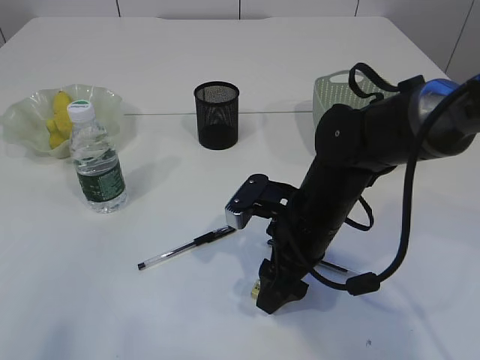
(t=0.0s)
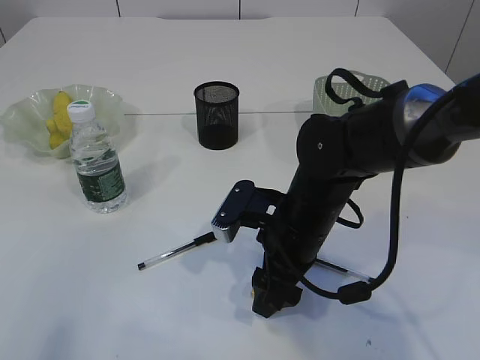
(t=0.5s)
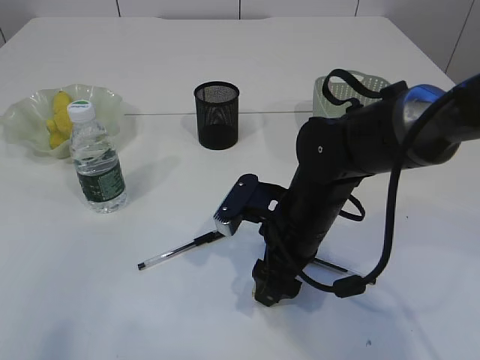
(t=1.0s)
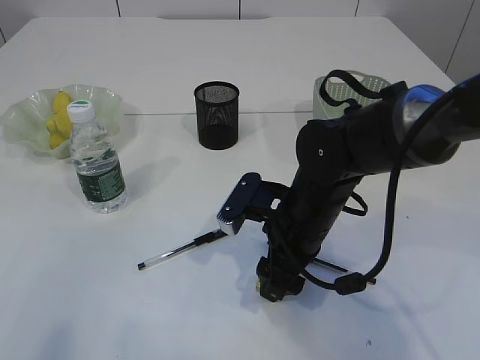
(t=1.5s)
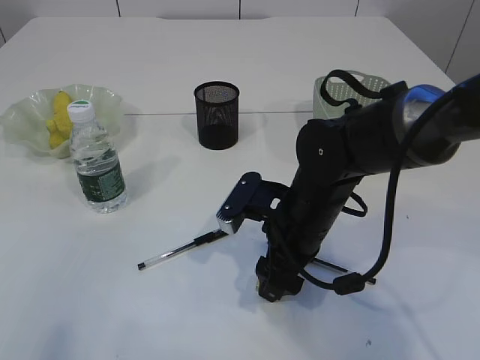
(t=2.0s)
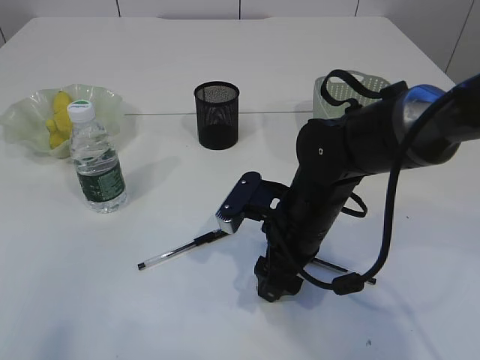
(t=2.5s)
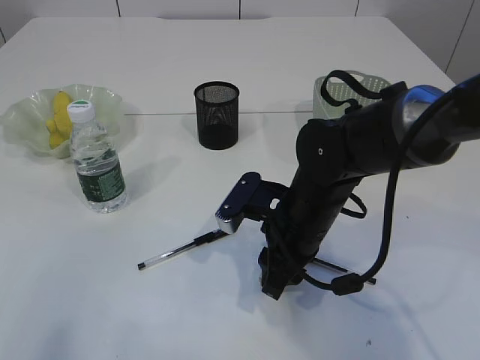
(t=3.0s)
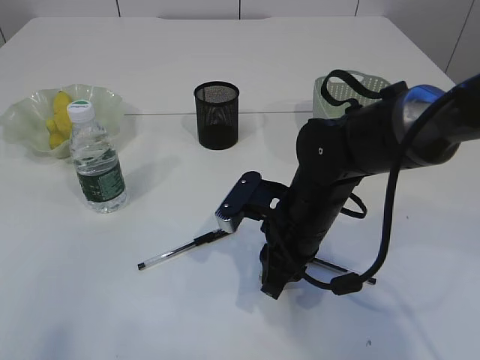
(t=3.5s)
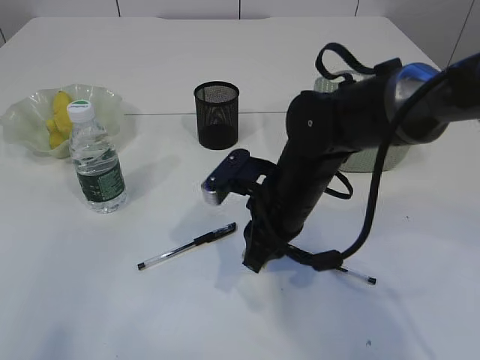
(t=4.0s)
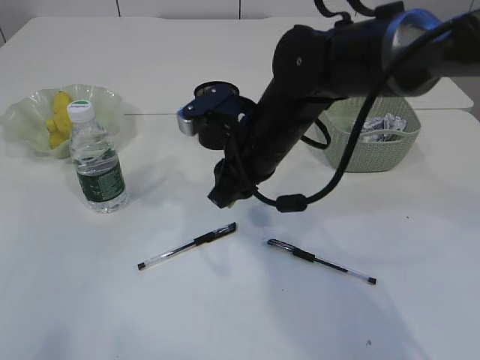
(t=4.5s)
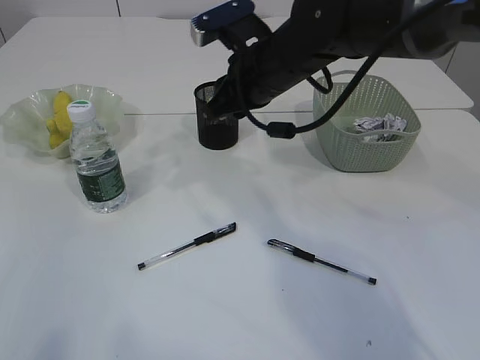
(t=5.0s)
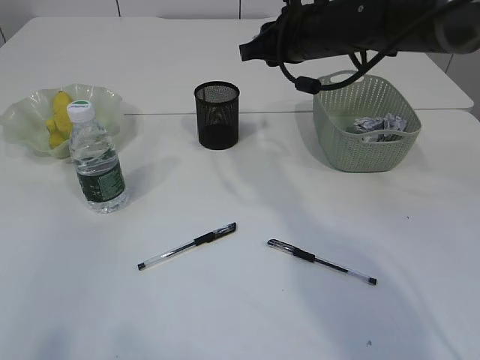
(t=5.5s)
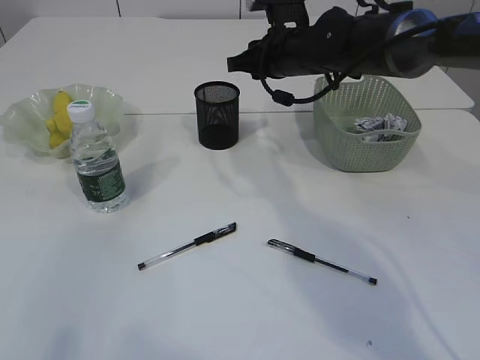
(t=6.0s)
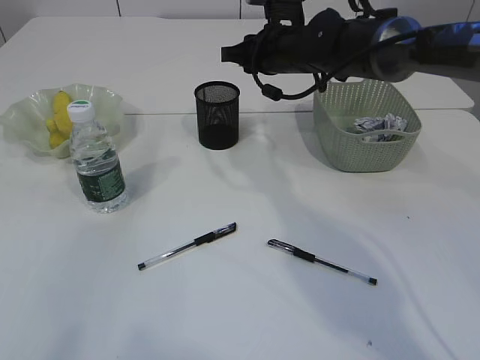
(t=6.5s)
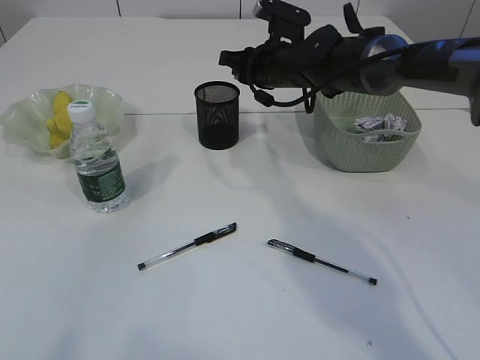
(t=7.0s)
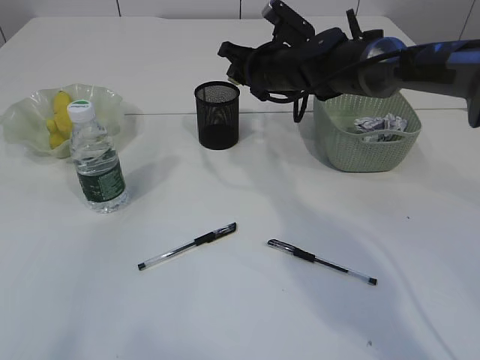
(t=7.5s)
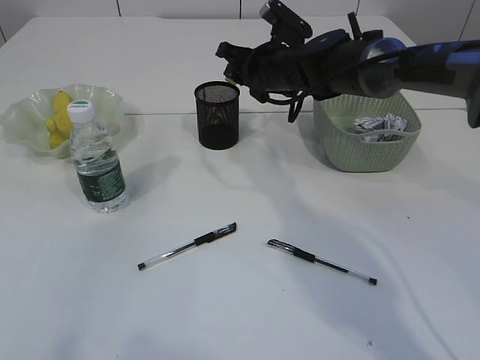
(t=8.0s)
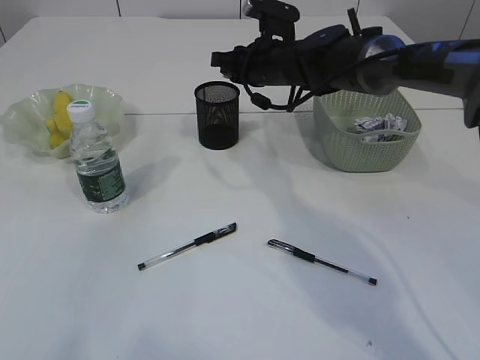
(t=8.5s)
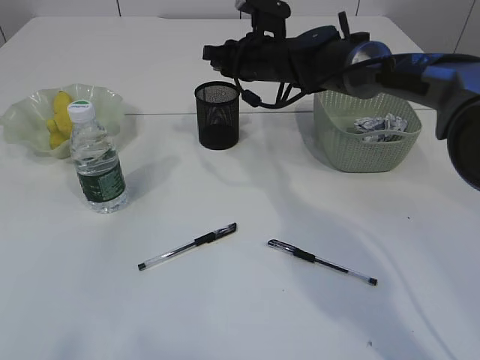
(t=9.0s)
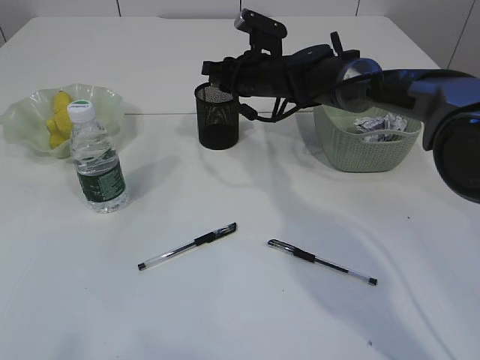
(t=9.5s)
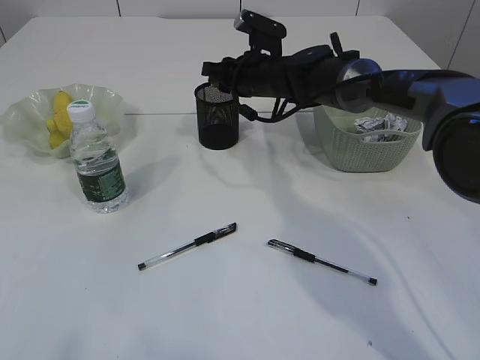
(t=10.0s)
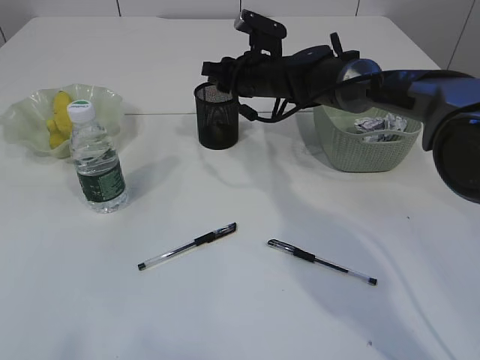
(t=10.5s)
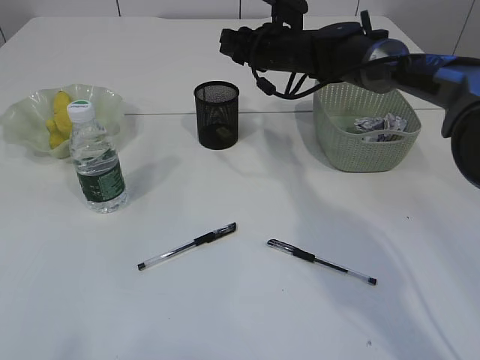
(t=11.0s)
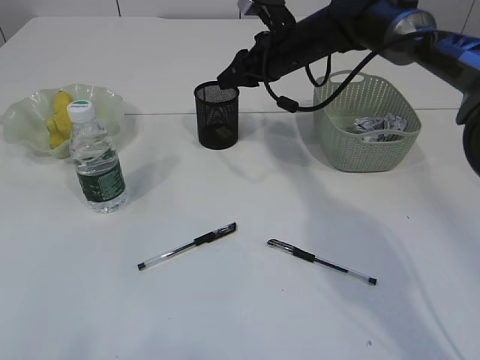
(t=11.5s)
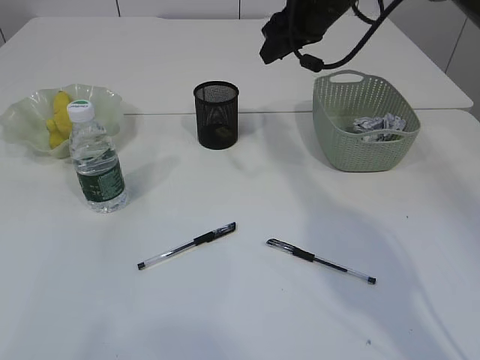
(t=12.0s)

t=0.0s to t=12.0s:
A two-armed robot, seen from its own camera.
Step, t=0.0s to t=4.0s: Pick up the eraser.
Step, t=4.5s to t=10.5s: Place the eraser into the pen holder.
t=0.0s to t=2.0s: The grippers stay close to where they were, moving slightly.
t=2.0s to t=4.0s: The right gripper closes.
t=4.0s to t=6.0s: The right gripper moves forward and upward, about 20 cm.
t=10.0s to t=12.0s: The right gripper moves upward and to the right, roughly 15 cm.

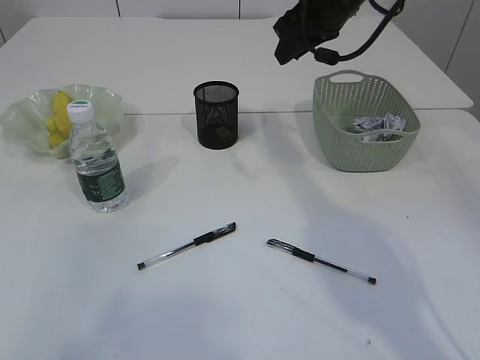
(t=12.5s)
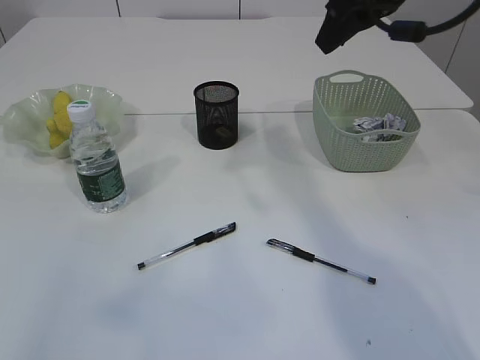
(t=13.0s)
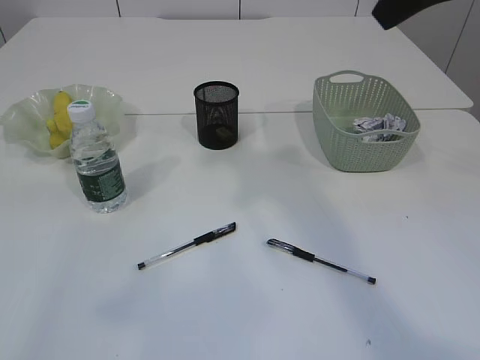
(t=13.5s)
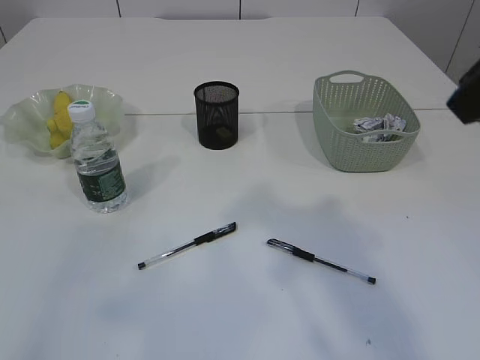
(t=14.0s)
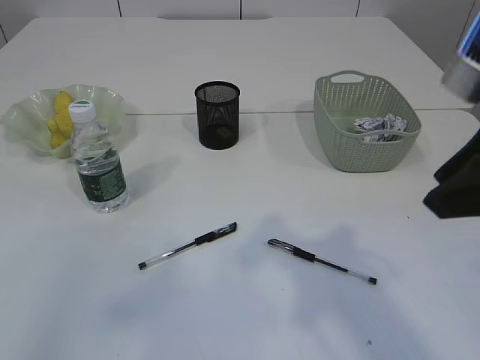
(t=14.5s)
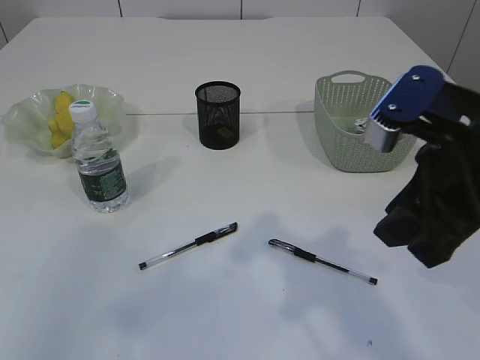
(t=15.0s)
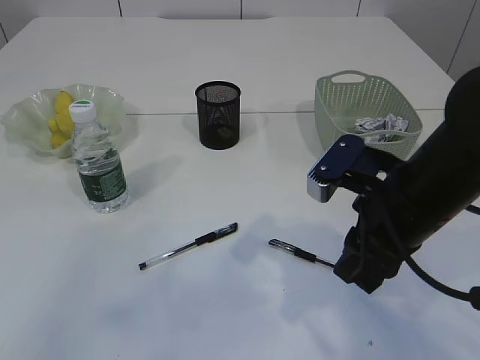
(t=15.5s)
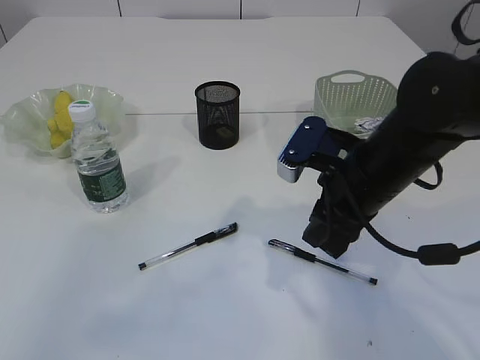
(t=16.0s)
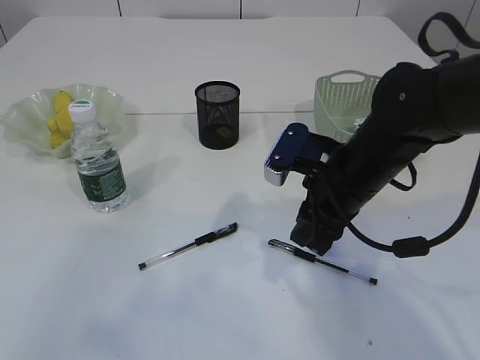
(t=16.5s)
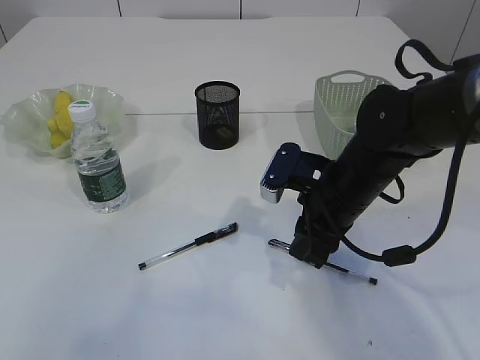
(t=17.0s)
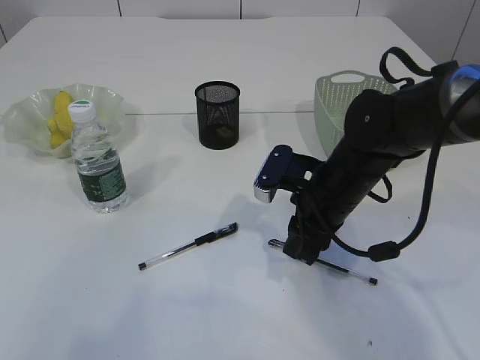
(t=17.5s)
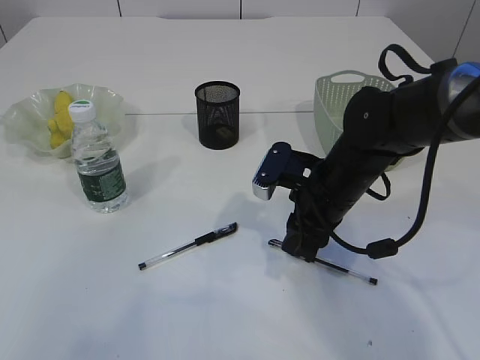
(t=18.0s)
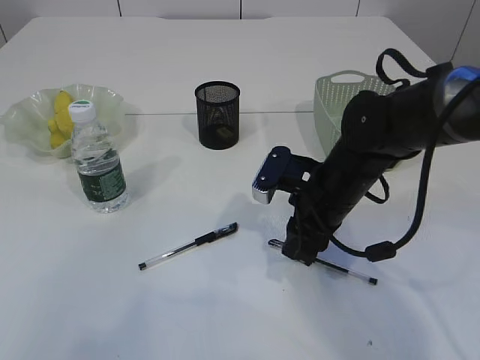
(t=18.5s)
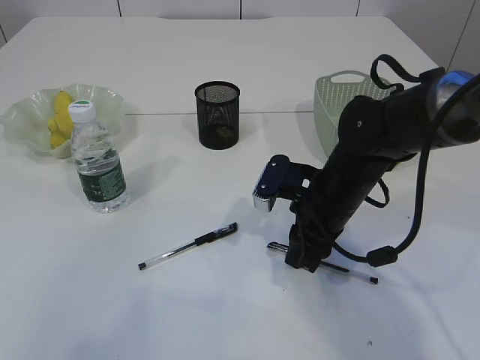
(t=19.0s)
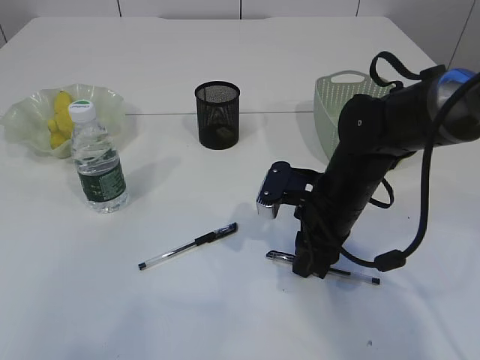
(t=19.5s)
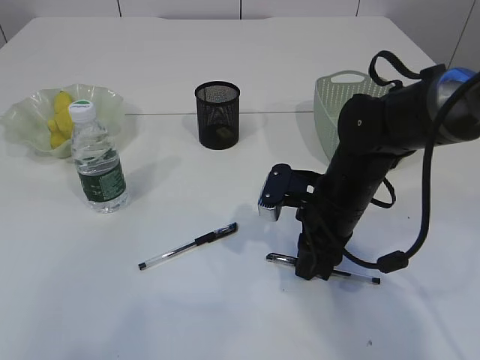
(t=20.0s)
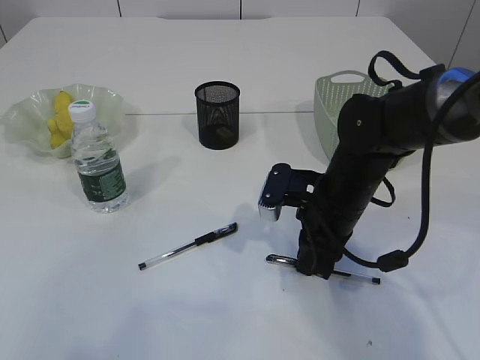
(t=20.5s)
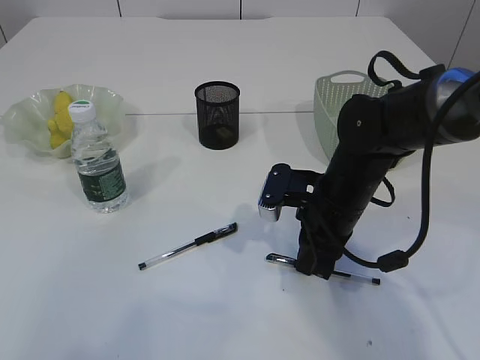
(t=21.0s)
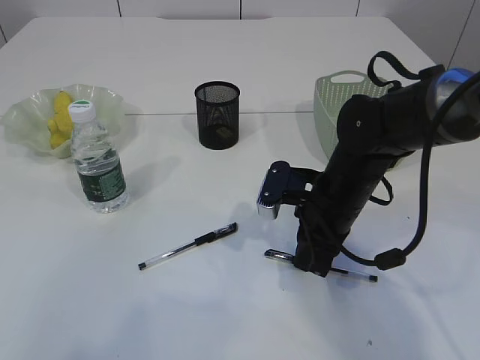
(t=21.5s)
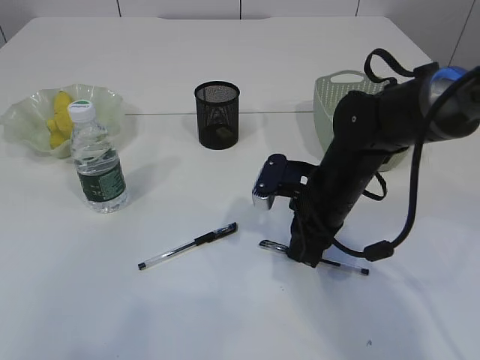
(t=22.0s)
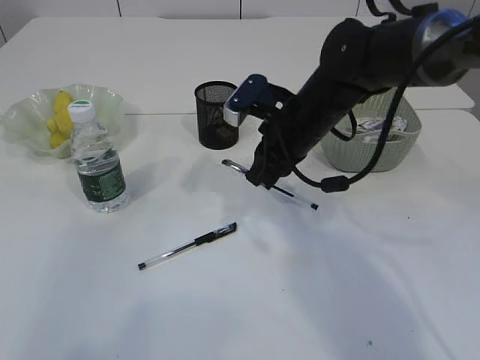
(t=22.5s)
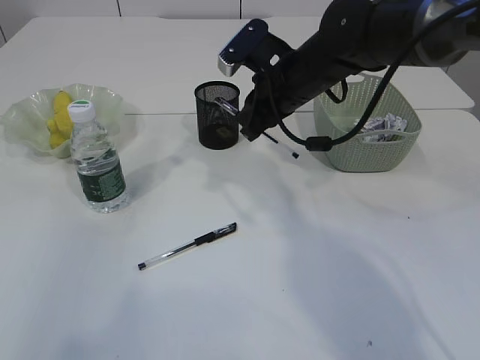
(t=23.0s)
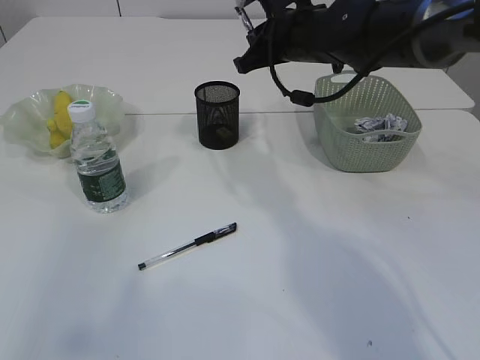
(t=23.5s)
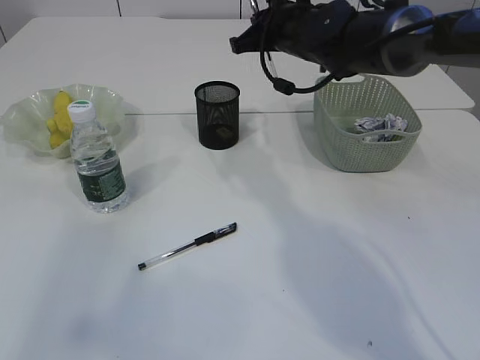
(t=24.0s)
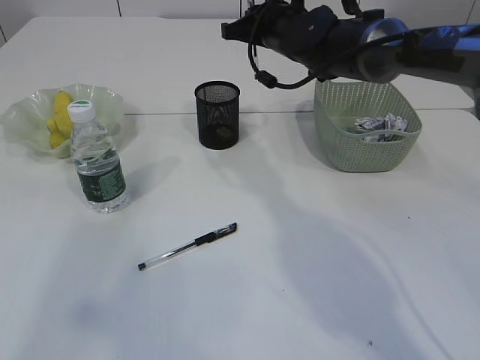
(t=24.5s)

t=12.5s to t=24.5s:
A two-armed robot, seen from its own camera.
Step, t=12.5s to t=22.5s: Pick up the pen with right arm.
t=12.5s to t=14.5s: The right gripper heads backward, covering roughly 30 cm.
t=14.5s to t=16.5s: The right gripper travels downward, forward and to the left by some 20 cm.
t=16.5s to t=20.5s: The grippers move only a little.
t=20.5s to t=22.5s: The right gripper goes roughly 10 cm upward and forward.
t=22.5s to t=24.5s: The right gripper goes some 15 cm forward and upward.

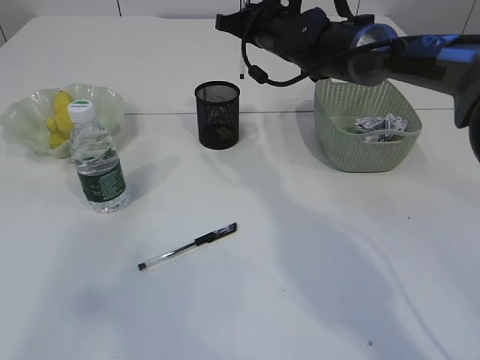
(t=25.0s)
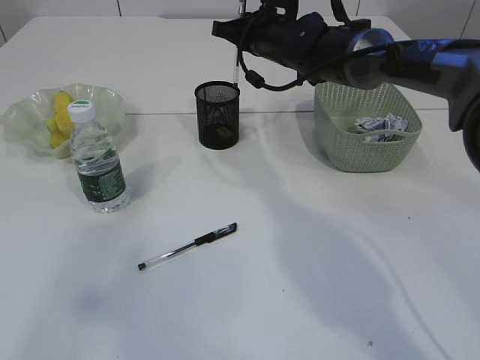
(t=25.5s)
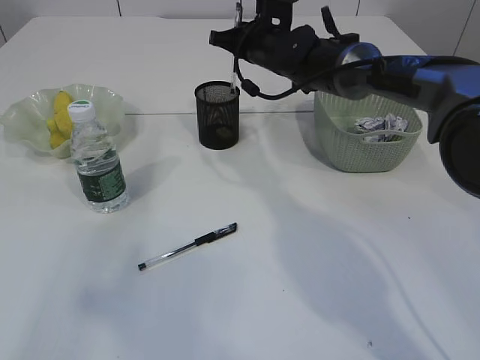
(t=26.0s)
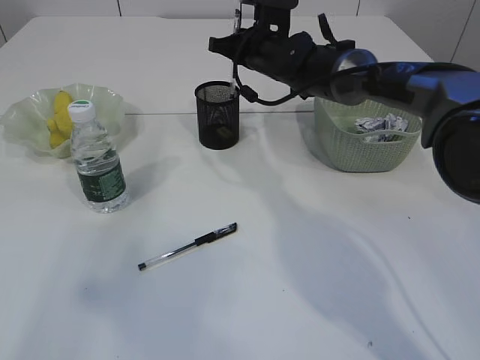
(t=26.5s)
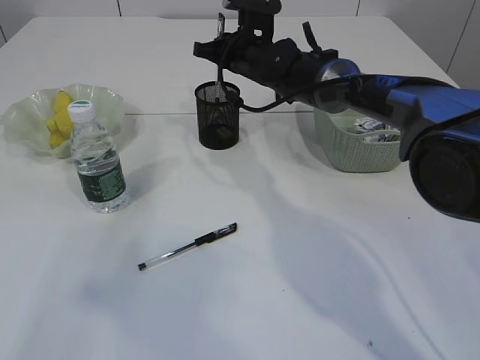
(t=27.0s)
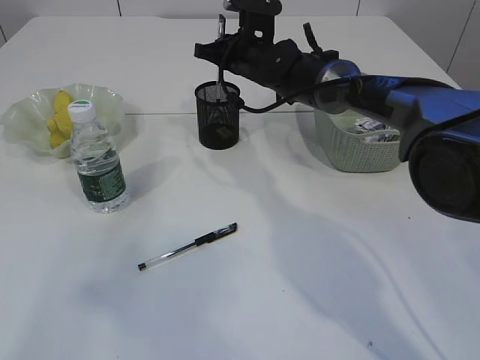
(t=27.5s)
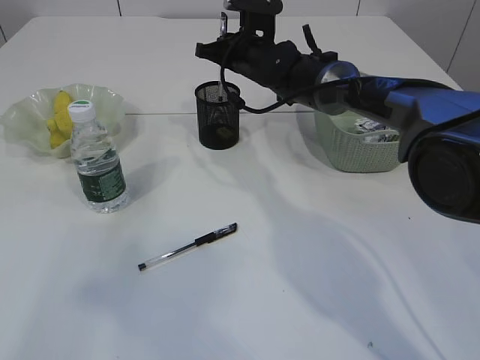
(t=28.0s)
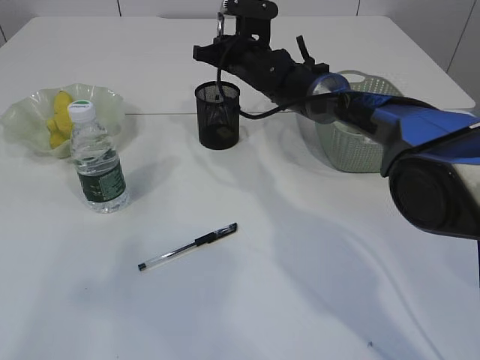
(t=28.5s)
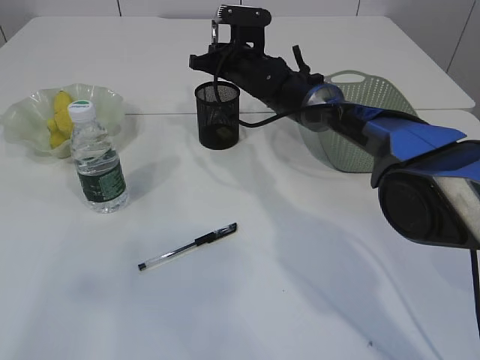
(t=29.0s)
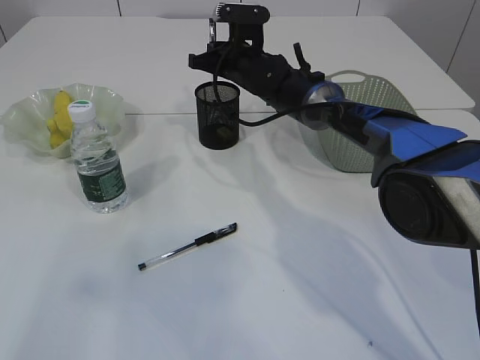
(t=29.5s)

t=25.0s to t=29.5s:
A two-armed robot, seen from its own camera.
t=25.0s to t=27.0s: The right gripper changes place by roughly 5 cm.
t=27.0s to t=29.5s: The grippers stay close to where they were, moving slightly.
